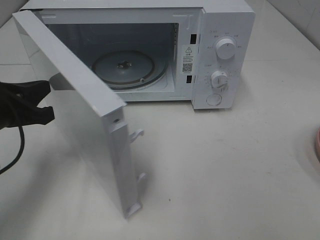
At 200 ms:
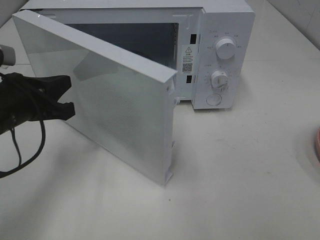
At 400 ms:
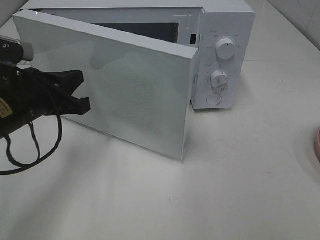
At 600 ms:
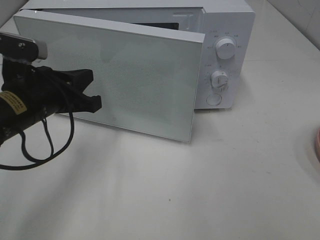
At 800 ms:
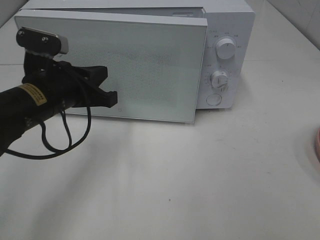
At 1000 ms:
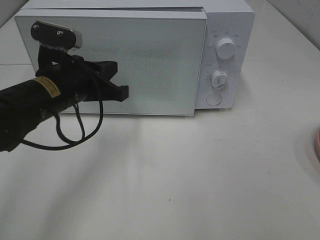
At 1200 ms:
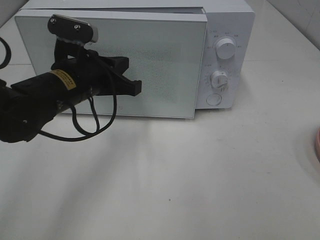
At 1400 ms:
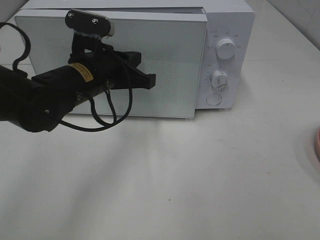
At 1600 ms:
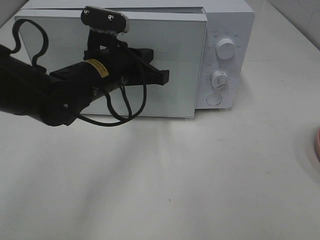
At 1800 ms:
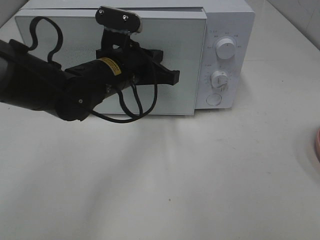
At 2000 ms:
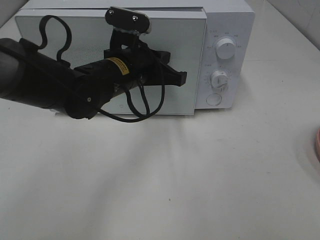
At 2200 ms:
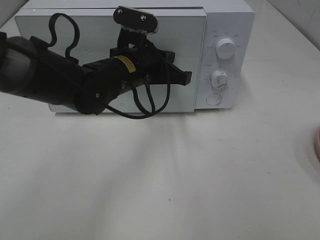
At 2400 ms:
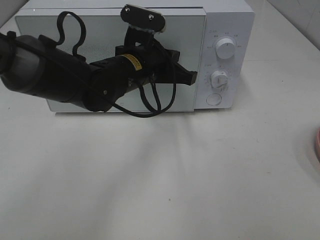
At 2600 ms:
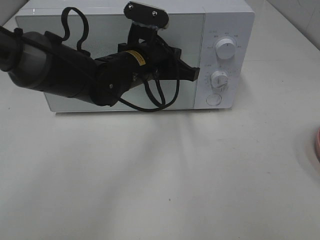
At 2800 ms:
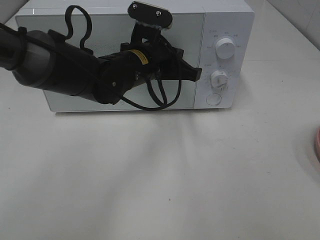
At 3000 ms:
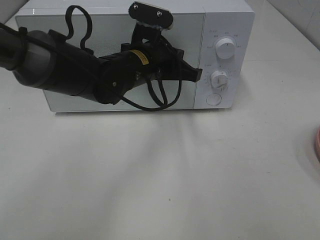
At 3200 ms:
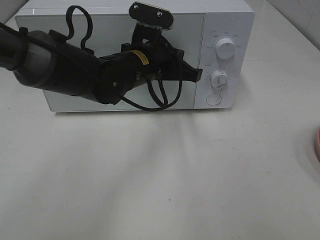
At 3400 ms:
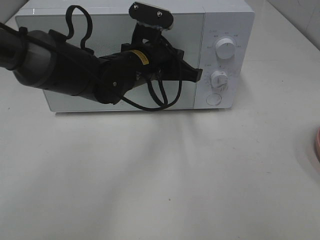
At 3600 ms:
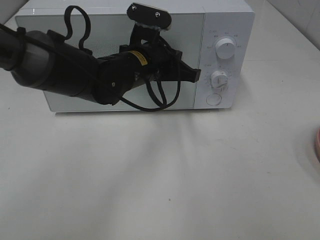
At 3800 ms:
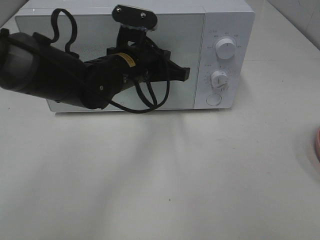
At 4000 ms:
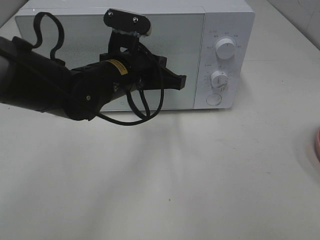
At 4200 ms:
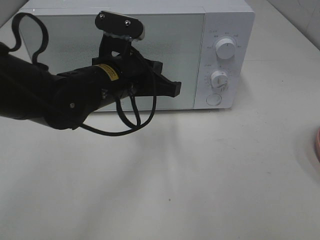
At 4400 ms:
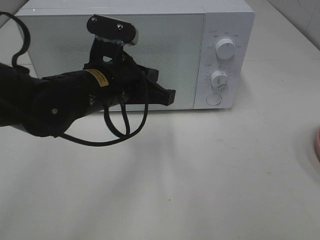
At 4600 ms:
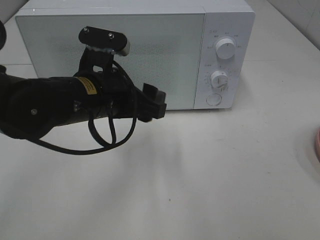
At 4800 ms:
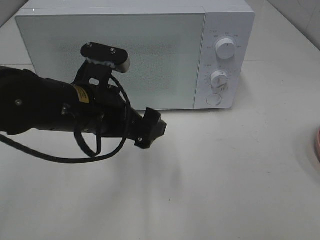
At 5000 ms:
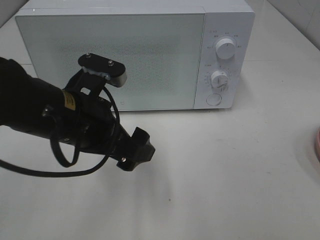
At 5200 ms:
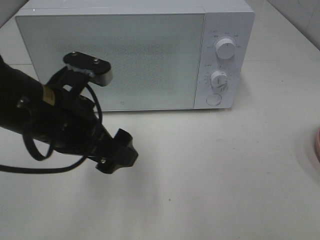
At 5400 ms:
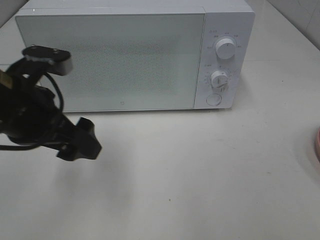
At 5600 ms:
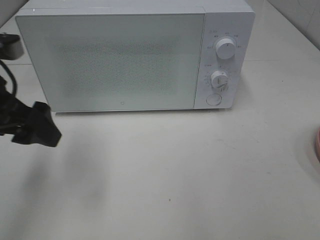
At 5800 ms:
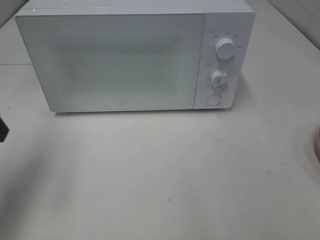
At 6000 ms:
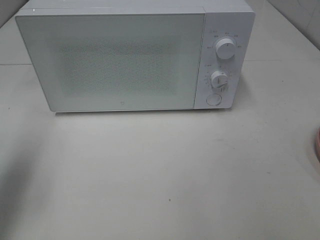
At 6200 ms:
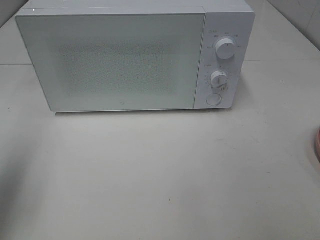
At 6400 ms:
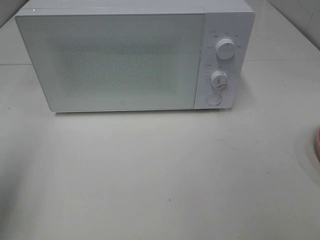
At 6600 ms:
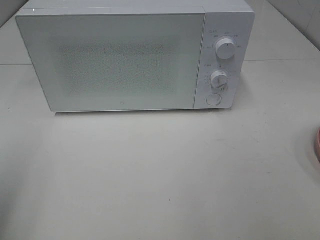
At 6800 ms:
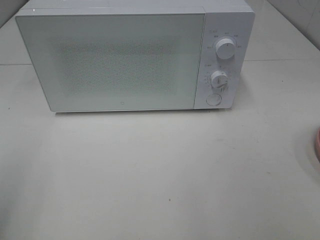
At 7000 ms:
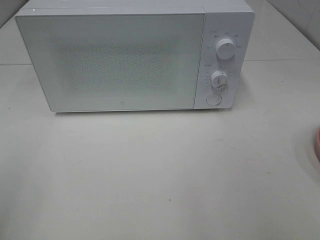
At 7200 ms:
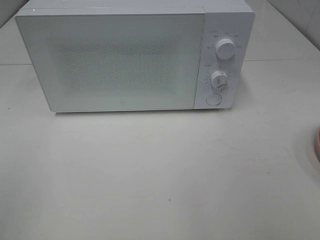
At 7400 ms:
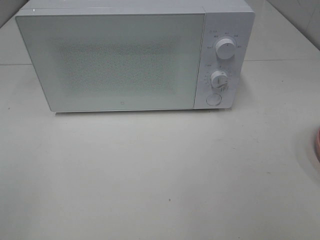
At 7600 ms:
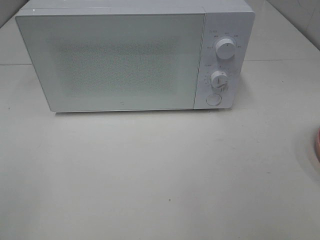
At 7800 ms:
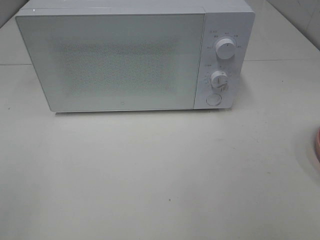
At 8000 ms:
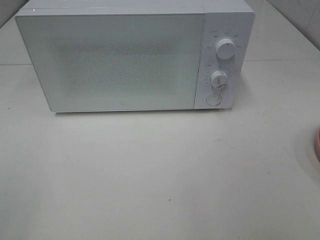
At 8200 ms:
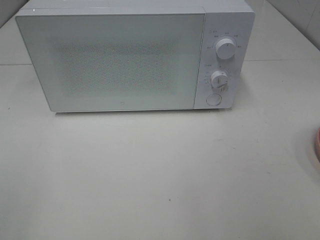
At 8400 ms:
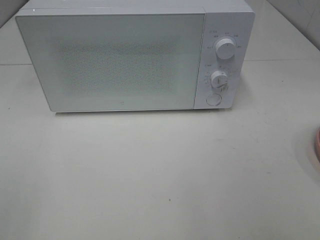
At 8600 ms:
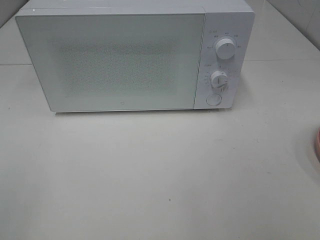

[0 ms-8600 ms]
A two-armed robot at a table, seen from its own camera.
Task of the whole recording: Heat Sandwich.
Step, 0 ms to 3600 ms: Left hand: close the microwave door.
0 ms to 1400 ms: The left gripper moves to the right and forward, some 15 cm.
1400 ms to 2800 ms: The left gripper travels to the right by some 5 cm.
2800 ms to 4400 ms: The left gripper moves backward, approximately 10 cm.
4400 ms to 5800 ms: The left gripper shifts approximately 20 cm to the left, and opens.
5800 ms to 7200 ms: The left gripper goes approximately 20 cm backward.
